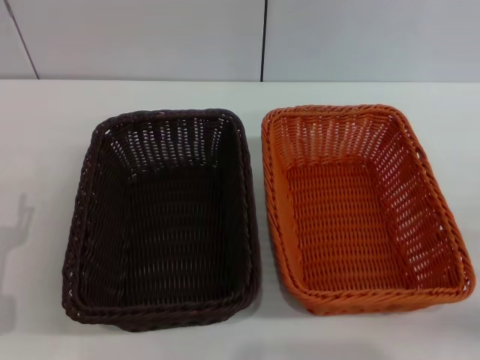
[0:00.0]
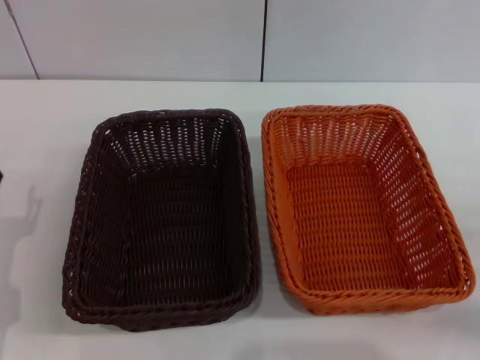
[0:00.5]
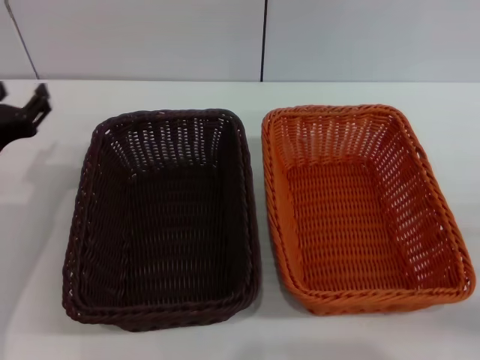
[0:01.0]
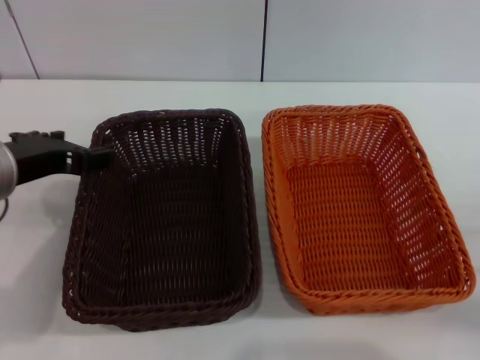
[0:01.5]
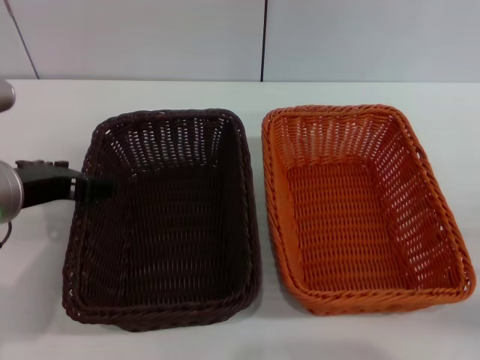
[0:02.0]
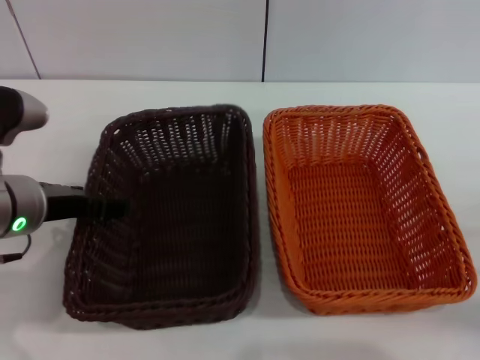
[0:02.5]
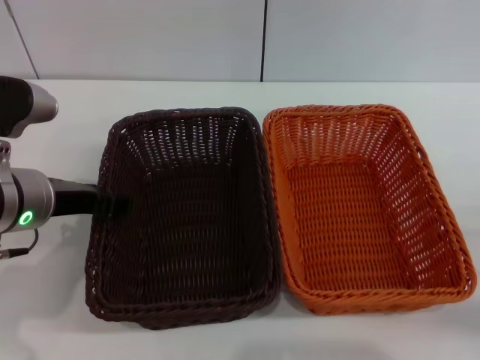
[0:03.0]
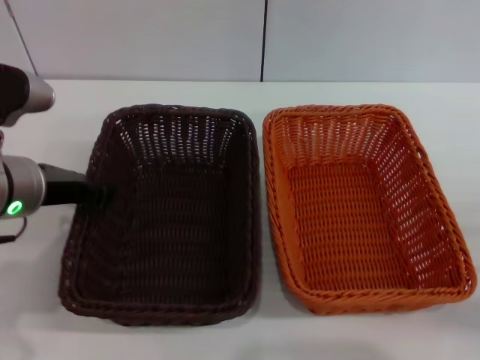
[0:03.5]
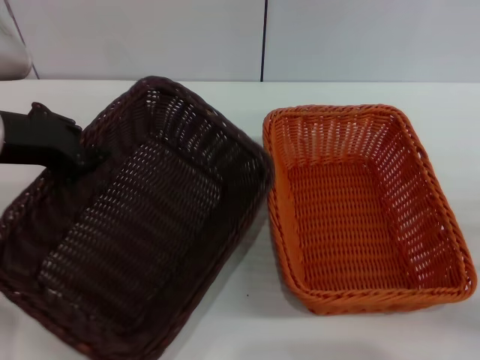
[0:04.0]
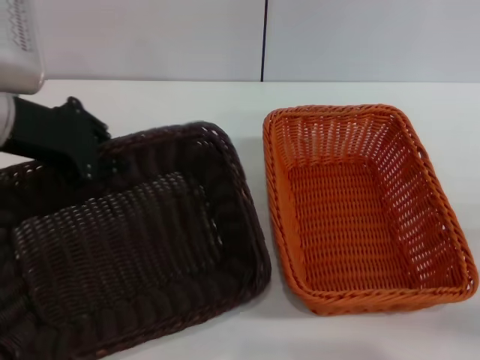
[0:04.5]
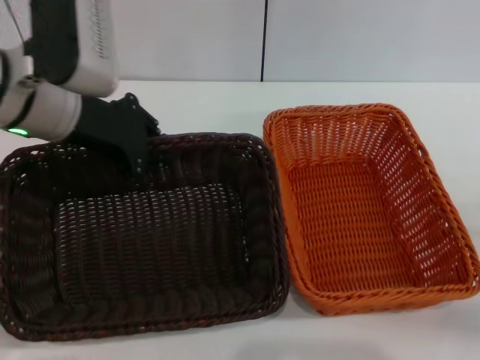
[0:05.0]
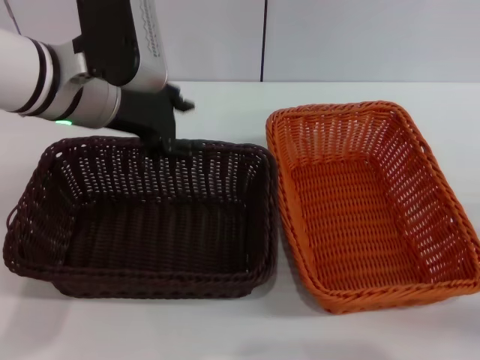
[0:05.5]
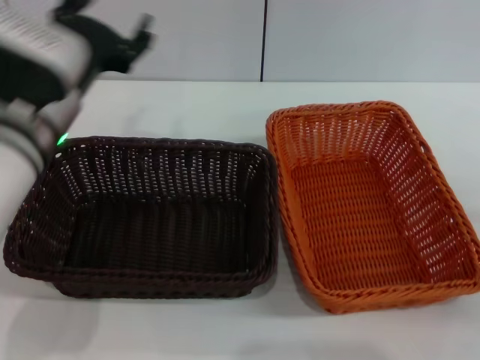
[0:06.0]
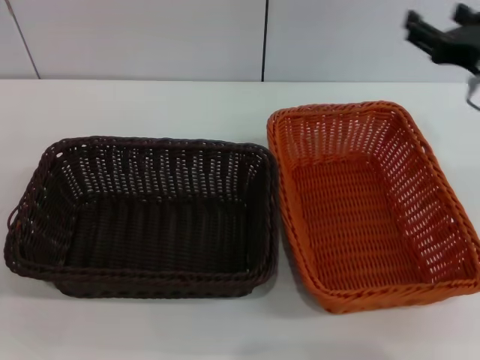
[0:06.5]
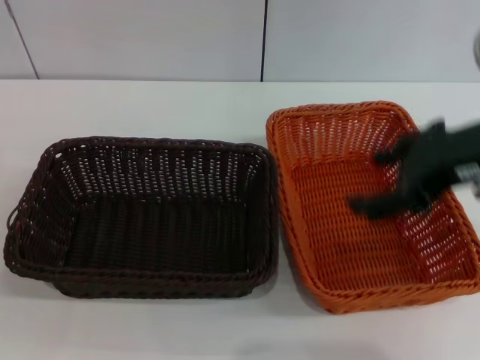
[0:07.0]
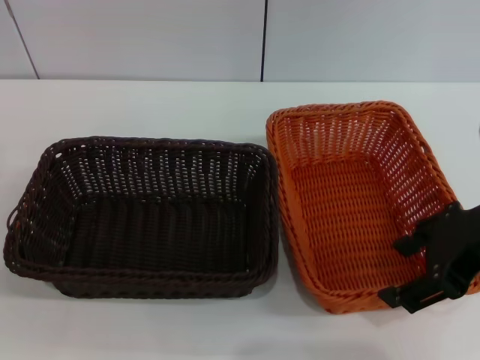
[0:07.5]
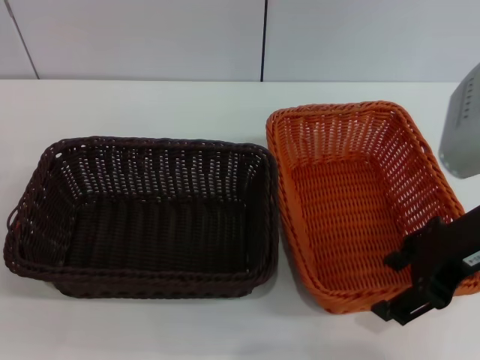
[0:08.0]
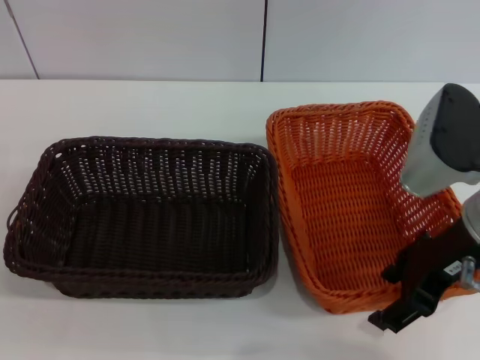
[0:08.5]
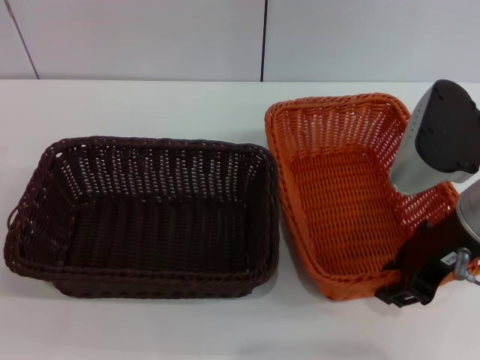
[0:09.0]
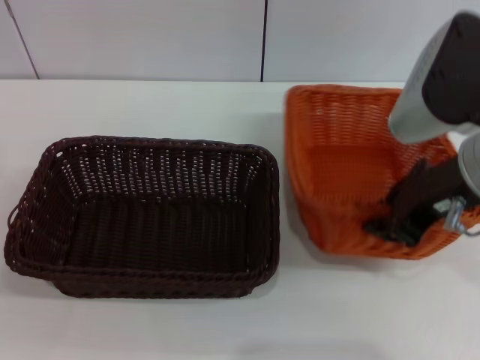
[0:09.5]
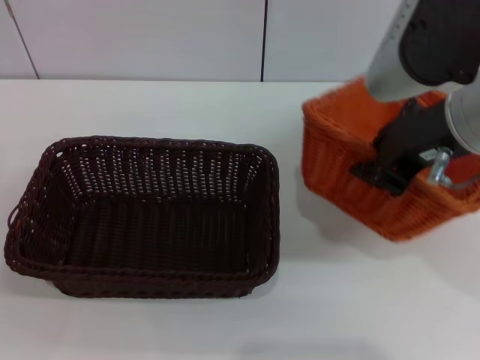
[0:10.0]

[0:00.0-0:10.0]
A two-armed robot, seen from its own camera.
Step, 0:00.0 to 0:03.5: Pick up the dark basket with the left gripper.
Step, 0:04.0 to 0:05.0: Place the dark basket in the center of view with the left gripper.
Step, 0:06.0 to 0:09.5: Pick up the light basket with the right gripper.
0:00.0 to 0:02.0: The left gripper heads upward, to the right and forward, covering about 20 cm.
0:02.0 to 0:04.0: The left gripper travels upward by some 5 cm, and closes its fingers.
0:04.0 to 0:06.0: The left gripper travels to the right and downward by approximately 10 cm, and opens up.
0:06.0 to 0:08.0: The left gripper moves to the left, downward and backward, about 20 cm. Meanwhile the right gripper travels upward and to the left by about 20 cm.
0:08.0 to 0:10.0: The right gripper moves upward and to the left, some 10 cm, and closes its fingers.

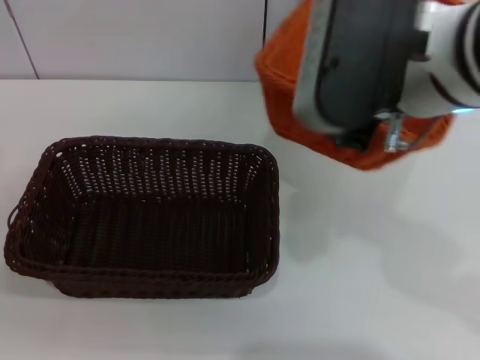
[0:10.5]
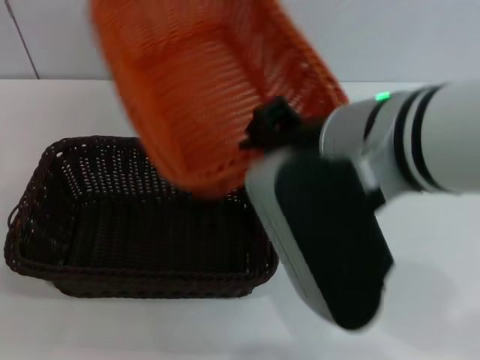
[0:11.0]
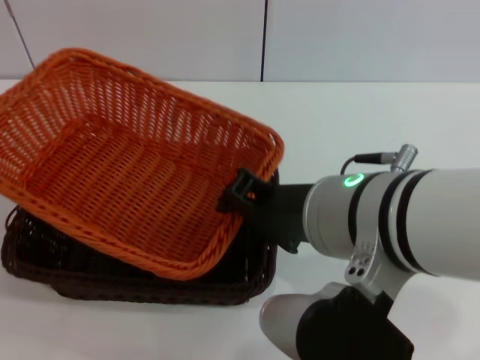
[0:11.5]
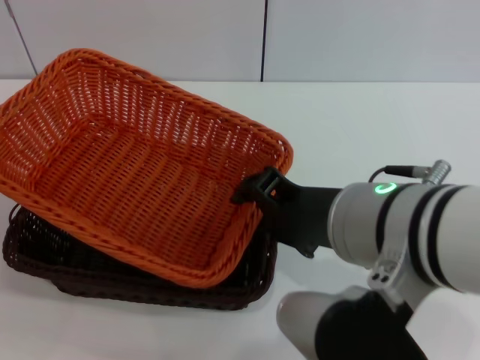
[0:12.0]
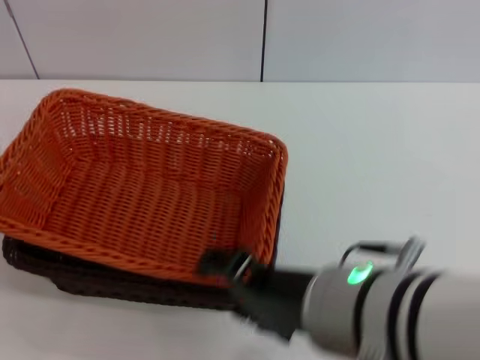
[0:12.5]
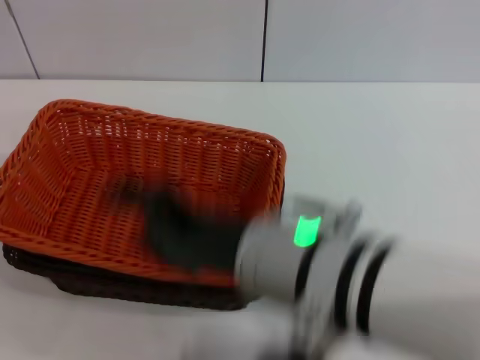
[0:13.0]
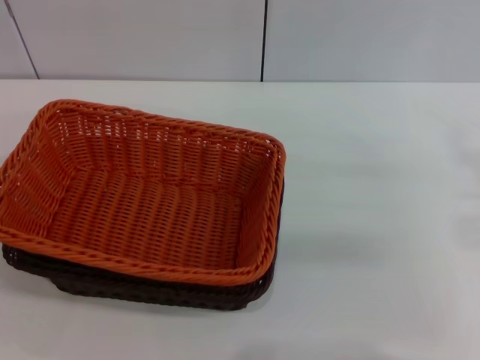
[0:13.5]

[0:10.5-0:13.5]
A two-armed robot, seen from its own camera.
Step, 0:10.5 to 0:12.5: Place the light basket on the dark basket with the right gripper.
0:10.5 to 0:12.0: The right gripper goes roughly 10 cm downward and backward.
0:12.0 to 0:13.5: The right gripper goes some 20 cm to the right, and opens up.
